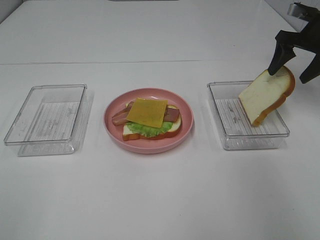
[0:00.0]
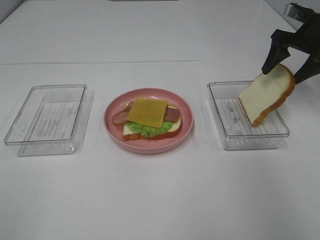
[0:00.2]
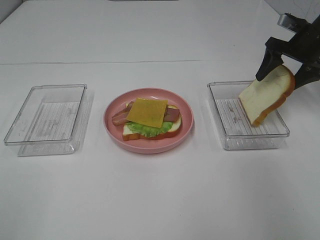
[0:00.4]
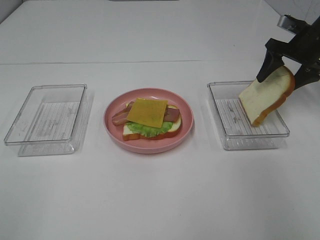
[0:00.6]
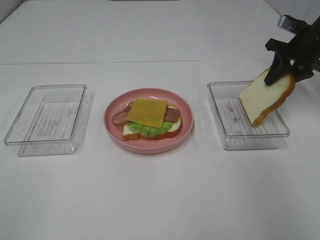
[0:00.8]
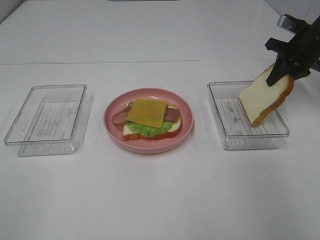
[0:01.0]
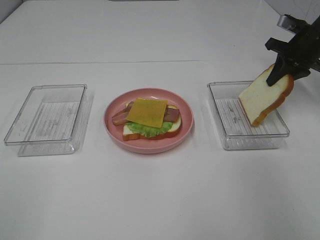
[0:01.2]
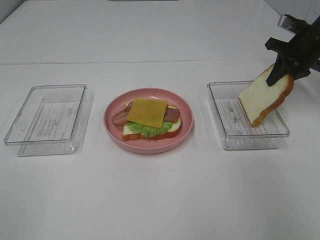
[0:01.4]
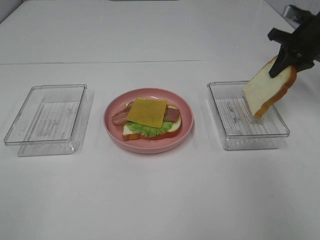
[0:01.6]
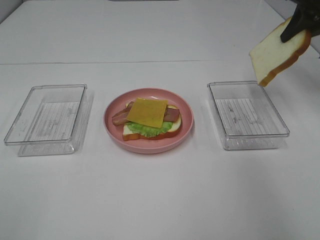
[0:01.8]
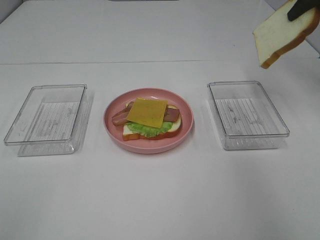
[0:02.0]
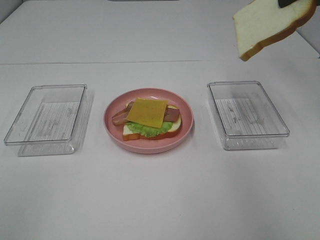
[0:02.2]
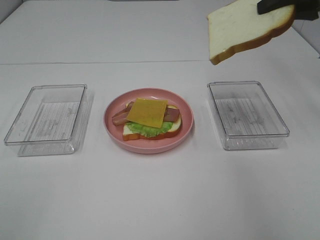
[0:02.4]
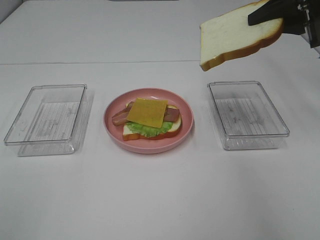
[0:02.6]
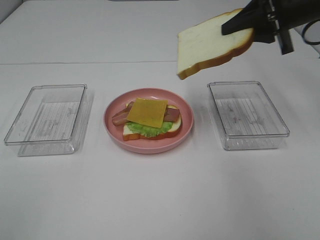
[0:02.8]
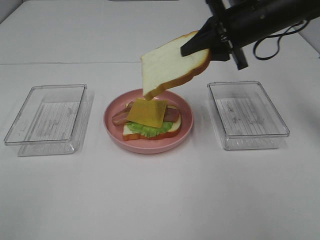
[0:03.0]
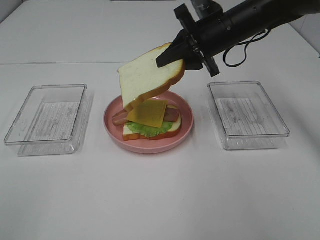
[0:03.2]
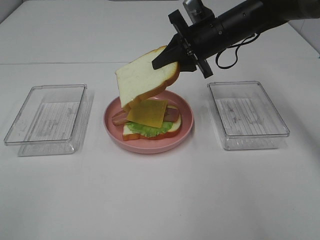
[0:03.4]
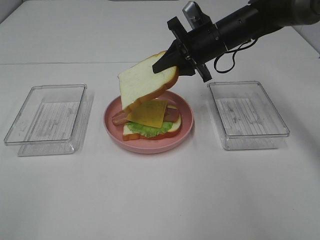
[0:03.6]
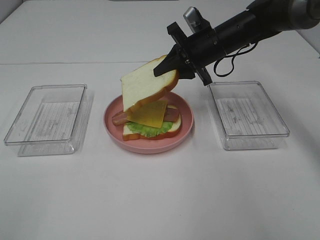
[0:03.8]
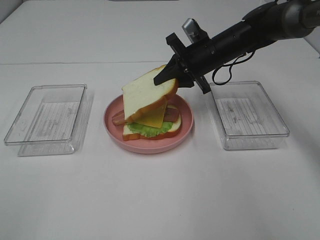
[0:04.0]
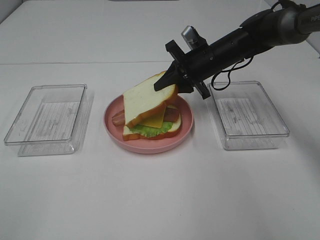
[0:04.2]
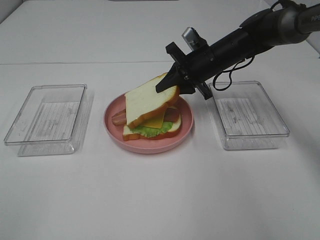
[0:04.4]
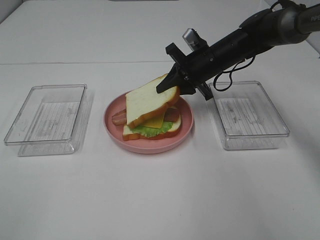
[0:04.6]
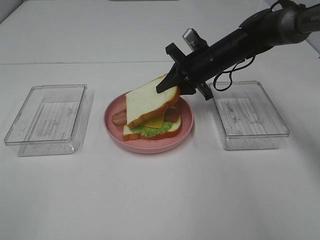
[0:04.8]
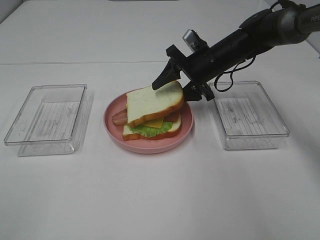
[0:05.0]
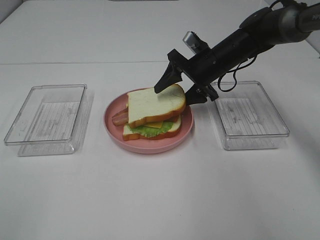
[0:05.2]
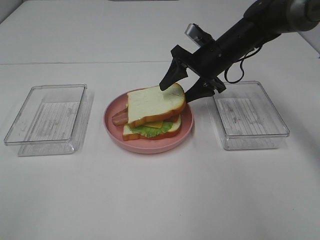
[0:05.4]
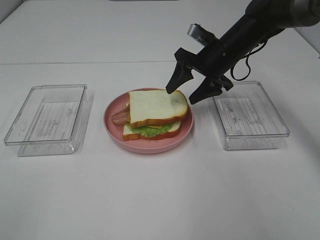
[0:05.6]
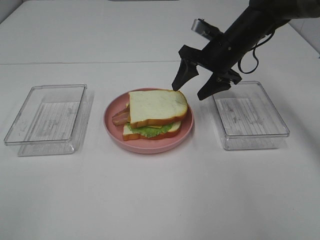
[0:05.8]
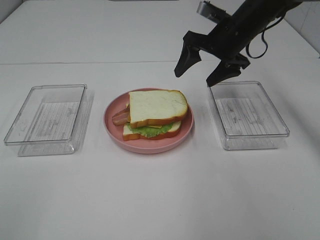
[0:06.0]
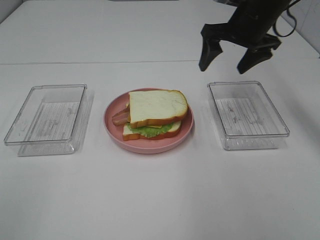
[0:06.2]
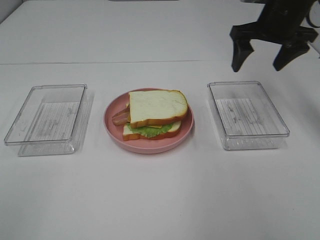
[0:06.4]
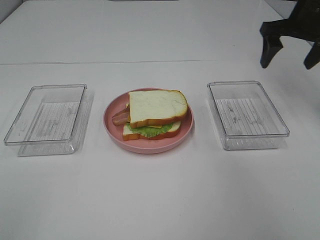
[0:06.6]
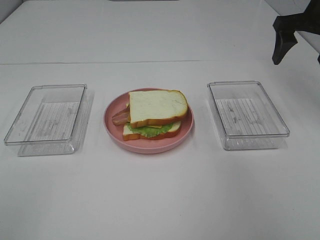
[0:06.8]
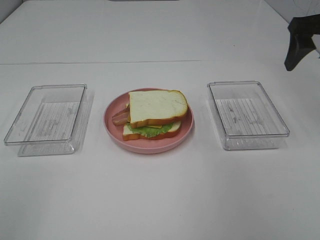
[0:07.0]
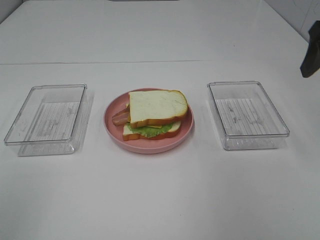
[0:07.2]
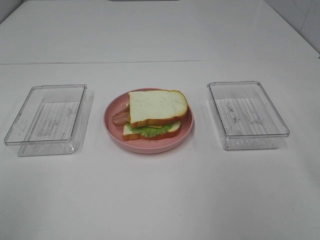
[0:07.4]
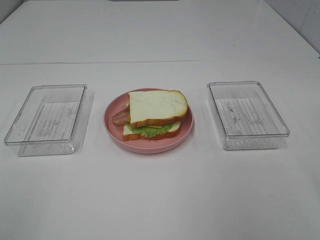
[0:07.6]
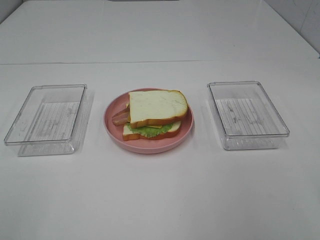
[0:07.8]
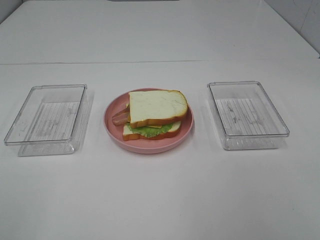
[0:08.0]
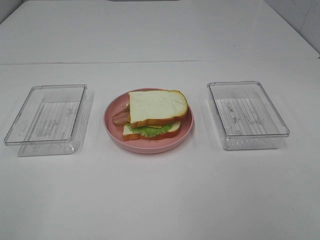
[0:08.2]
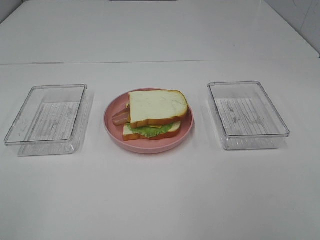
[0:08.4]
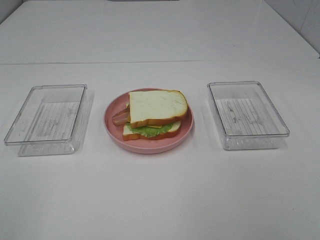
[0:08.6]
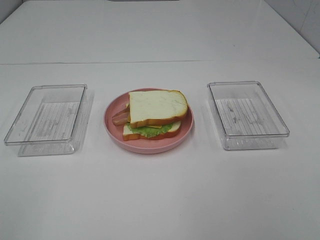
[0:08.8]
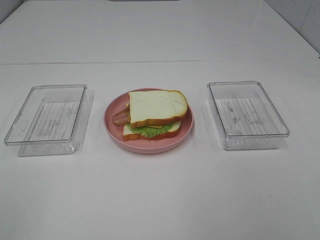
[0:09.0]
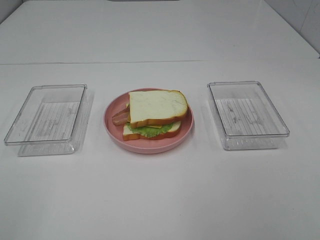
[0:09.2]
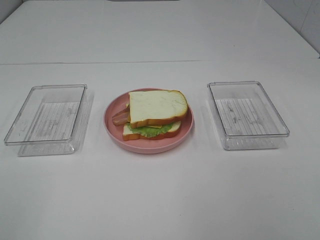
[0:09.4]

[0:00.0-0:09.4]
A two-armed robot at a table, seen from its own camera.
Task of the whole recording: Make sandwiches.
Step, 1.0 to 5.6 s: Right hand:place the bread slice on the cheese slice.
0.0 to 1.6 s: The right gripper closes up.
1.6 to 3.2 s: The right gripper heads to the left, covering approximately 20 cm.
3.2 to 4.8 s: The right gripper heads downward, covering approximately 10 cm.
4.8 to 6.2 s: The right gripper travels upward and to the right by some 15 cm, and opens.
6.2 to 7.8 s: The right gripper shifts about 35 cm backward.

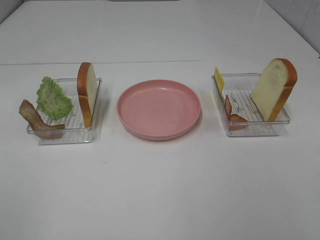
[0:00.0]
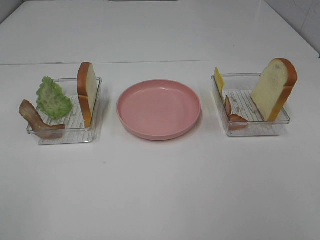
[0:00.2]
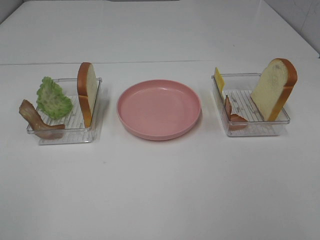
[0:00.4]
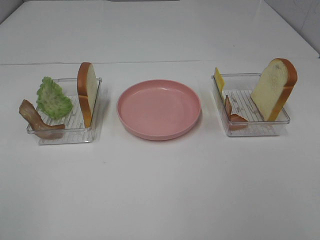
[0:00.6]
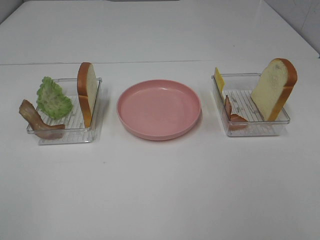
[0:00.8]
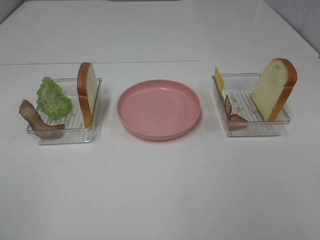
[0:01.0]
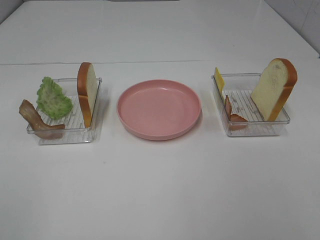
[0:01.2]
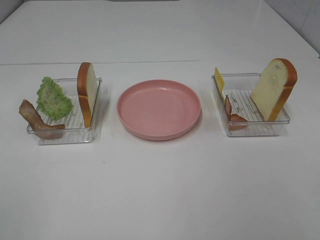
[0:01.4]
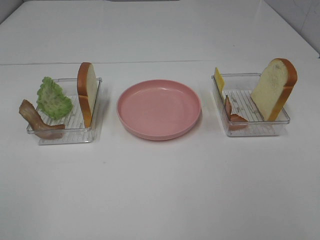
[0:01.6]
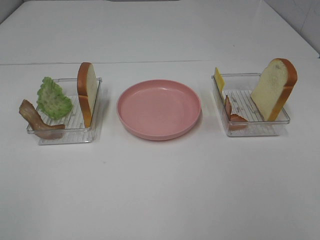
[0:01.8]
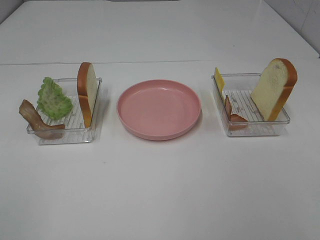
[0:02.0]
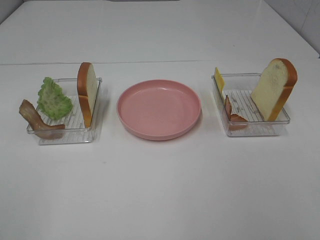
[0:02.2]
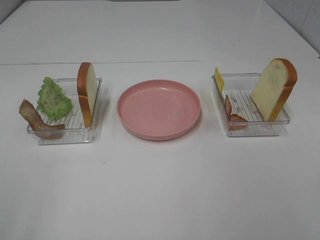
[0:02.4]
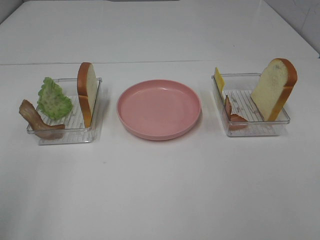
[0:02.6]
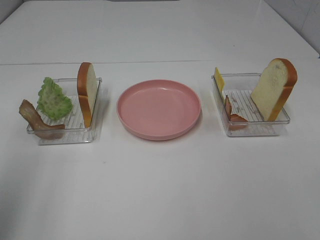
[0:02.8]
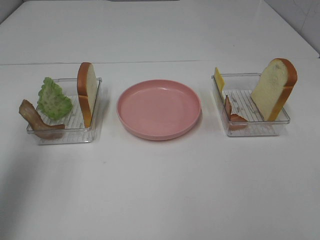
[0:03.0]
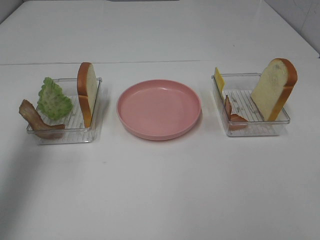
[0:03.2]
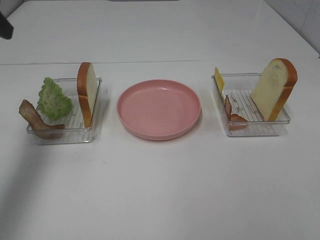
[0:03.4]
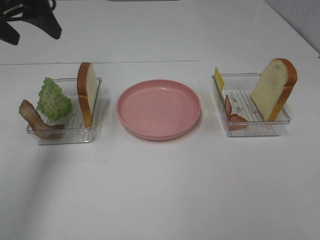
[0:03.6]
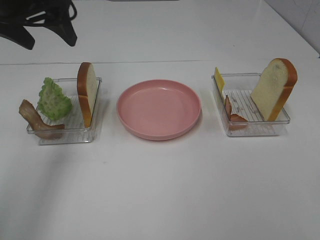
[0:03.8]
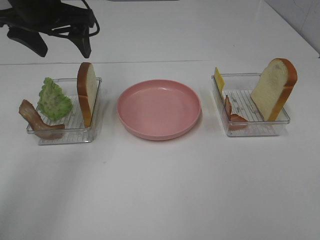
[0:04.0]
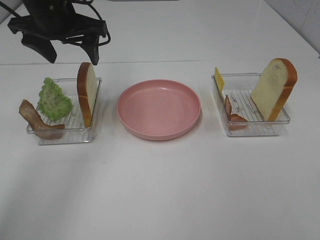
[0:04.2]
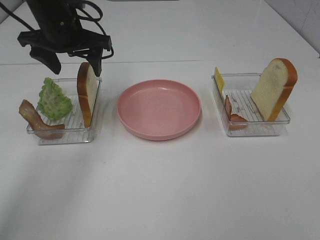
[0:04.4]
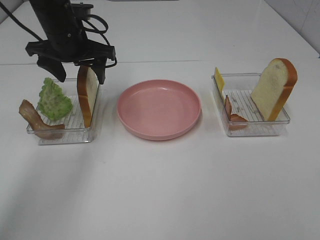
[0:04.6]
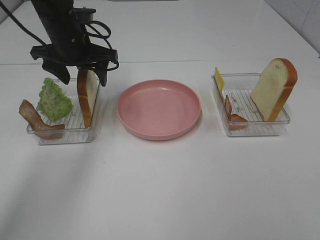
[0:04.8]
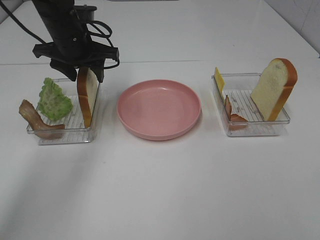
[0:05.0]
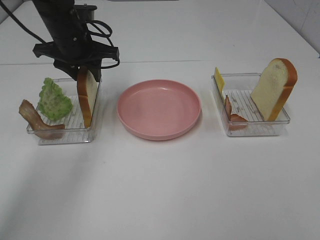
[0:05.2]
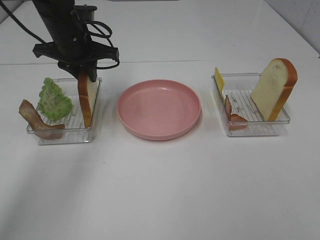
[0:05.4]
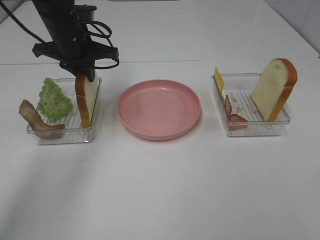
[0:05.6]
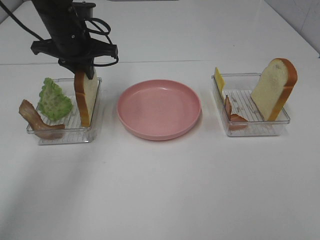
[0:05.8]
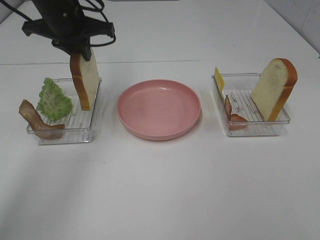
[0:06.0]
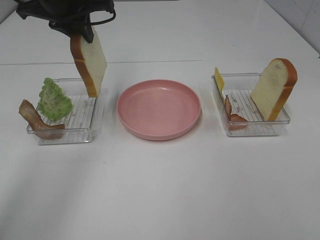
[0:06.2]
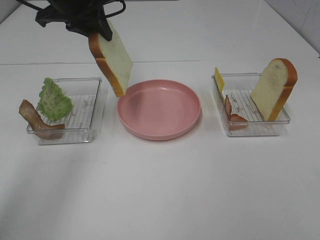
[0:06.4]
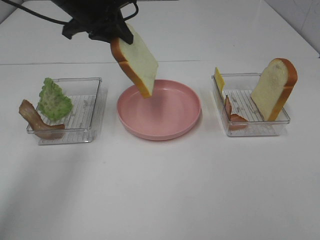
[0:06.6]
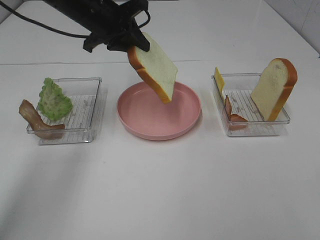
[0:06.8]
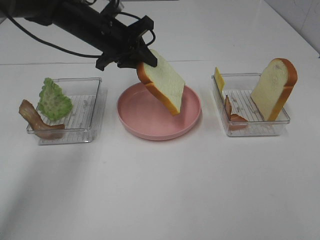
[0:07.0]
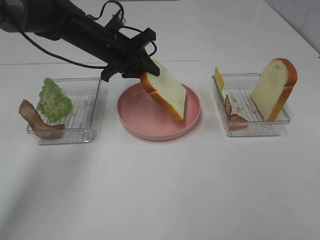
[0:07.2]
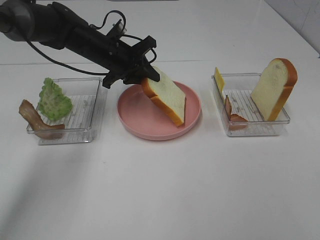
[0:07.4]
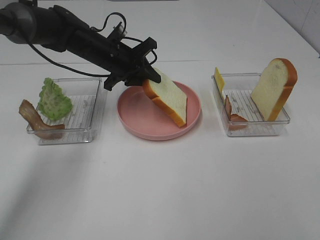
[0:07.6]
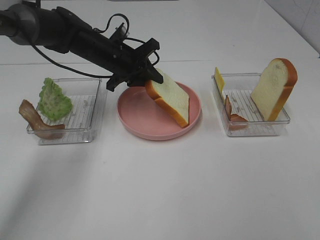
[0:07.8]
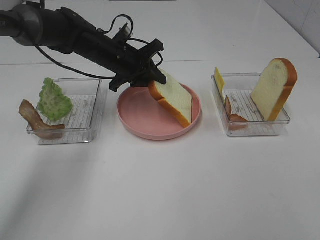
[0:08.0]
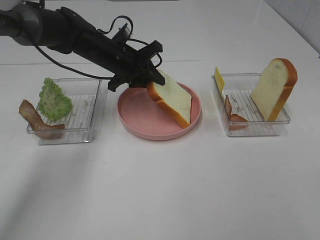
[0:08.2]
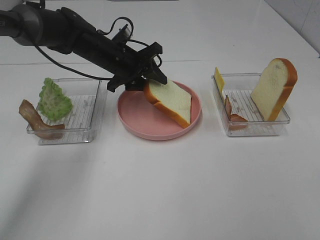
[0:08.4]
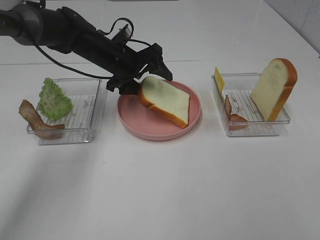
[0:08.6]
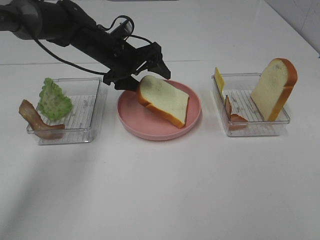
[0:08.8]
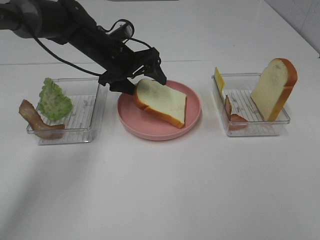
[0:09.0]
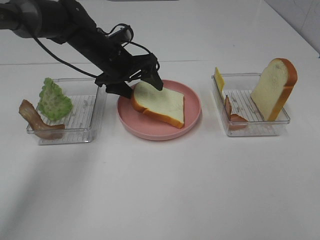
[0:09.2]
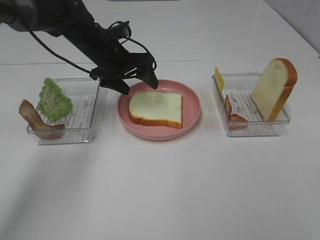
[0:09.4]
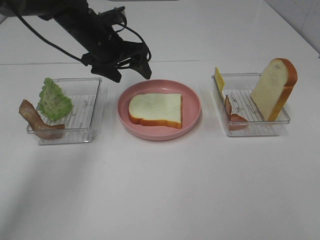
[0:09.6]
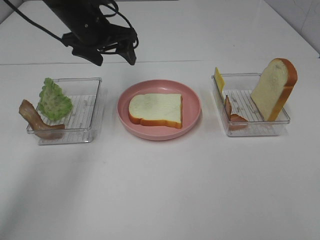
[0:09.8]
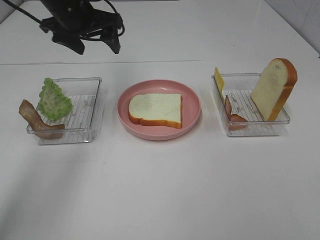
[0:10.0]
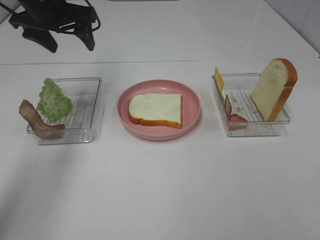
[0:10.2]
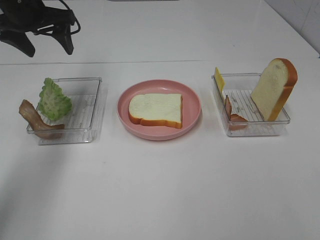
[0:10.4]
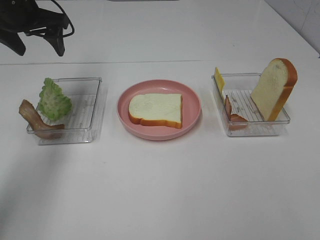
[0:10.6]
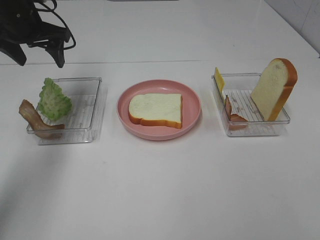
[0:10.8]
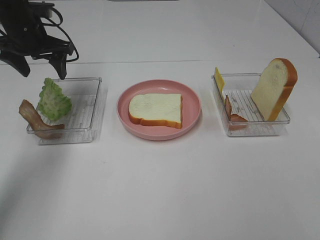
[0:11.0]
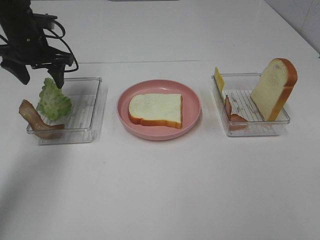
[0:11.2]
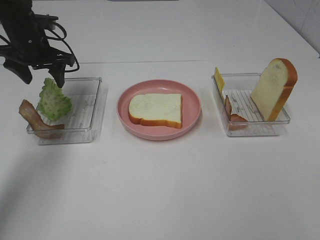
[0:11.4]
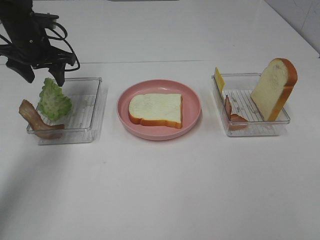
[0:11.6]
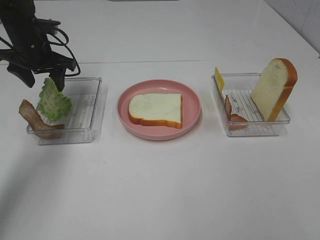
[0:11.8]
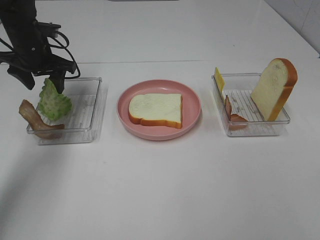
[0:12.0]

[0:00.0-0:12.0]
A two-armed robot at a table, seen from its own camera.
Task of the whole recording: Make sandwiches.
Step, 0.0 to 5.4 s: Left hand:grab the bread slice.
Step, 5.6 to 9.6 s: Left hand:place the bread slice on the plate.
0.0 to 1.6 s: Neither gripper changes place.
1.6 to 3.0 s: The left gripper heads forward, covering about 20 cm.
3.0 to 4.4 s: The left gripper shifts approximately 30 cm forward, to the right and downward.
4.4 to 6.0 s: The left gripper closes.
6.0 to 7.6 s: The left gripper heads downward and to the right, covering roughly 15 cm.
7.6 to 9.0 s: The left gripper opens its fingers.
9.0 to 10.4 s: The left gripper shifts approximately 20 cm to the left and upward.
10.4 to 12.0 s: The left gripper heads downward, covering approximately 10 cm.

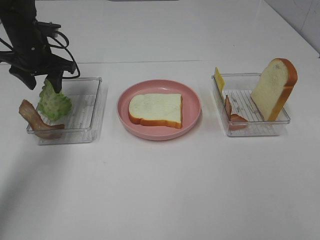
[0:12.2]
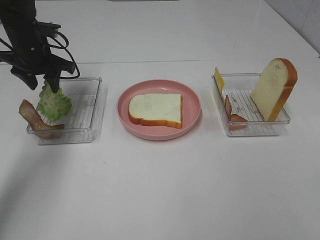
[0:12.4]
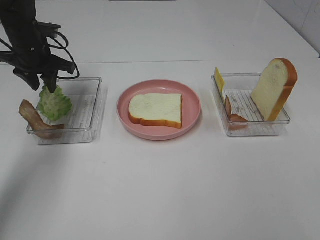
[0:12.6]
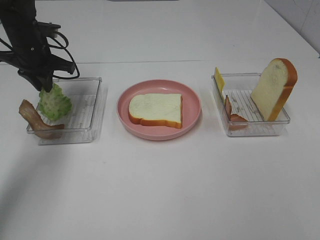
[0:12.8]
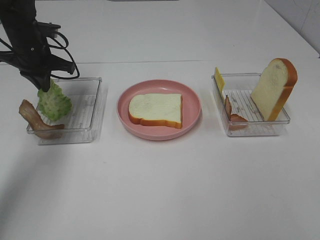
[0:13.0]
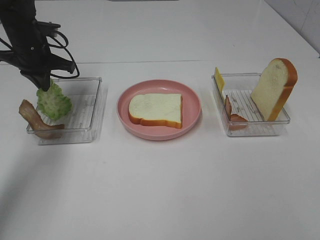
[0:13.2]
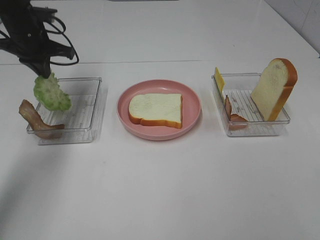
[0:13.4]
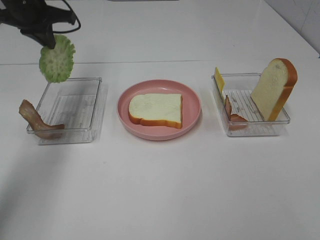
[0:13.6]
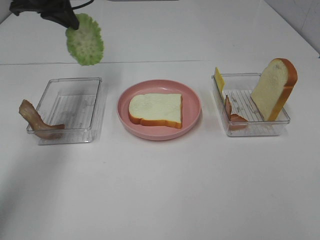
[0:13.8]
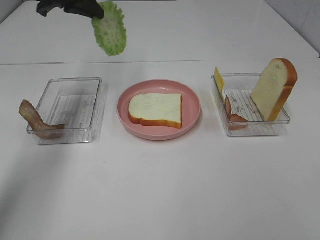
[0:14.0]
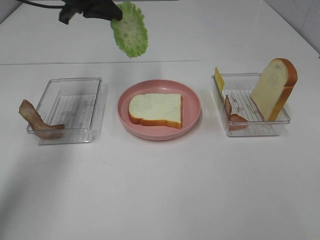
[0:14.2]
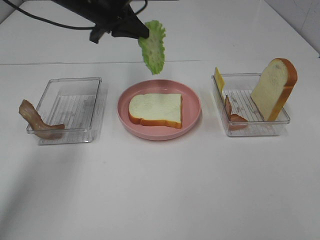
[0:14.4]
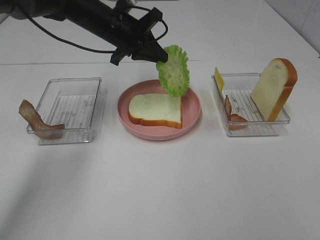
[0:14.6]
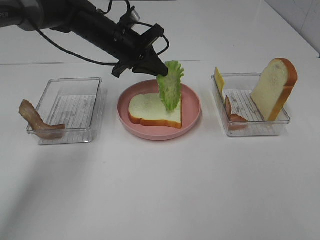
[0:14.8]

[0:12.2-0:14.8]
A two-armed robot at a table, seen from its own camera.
Task of the whole recording: Make sandwiches.
12.2 to 13.4 s: The left gripper closes its fingers.
13.4 to 14.8 s: The left gripper travels to the right by roughly 15 cm.
